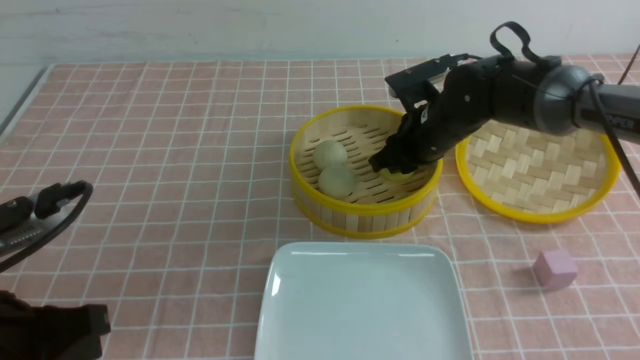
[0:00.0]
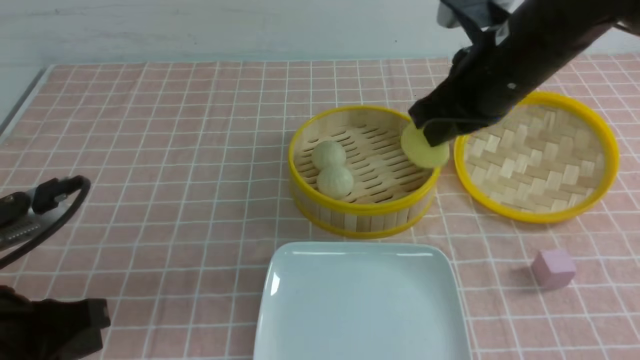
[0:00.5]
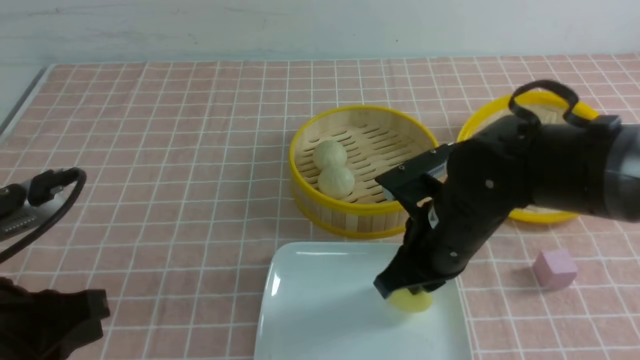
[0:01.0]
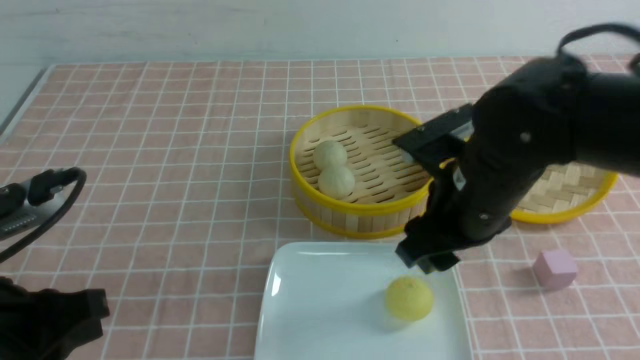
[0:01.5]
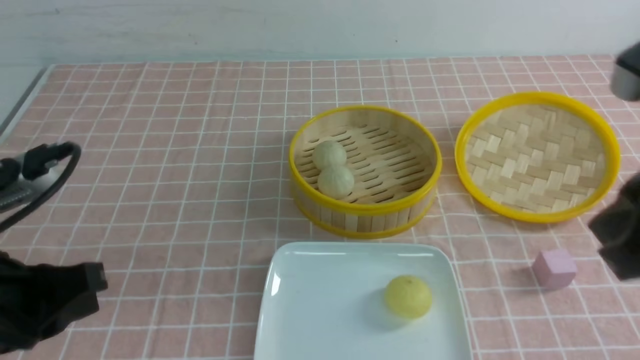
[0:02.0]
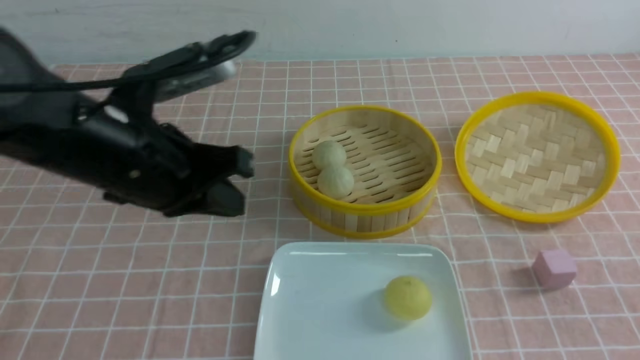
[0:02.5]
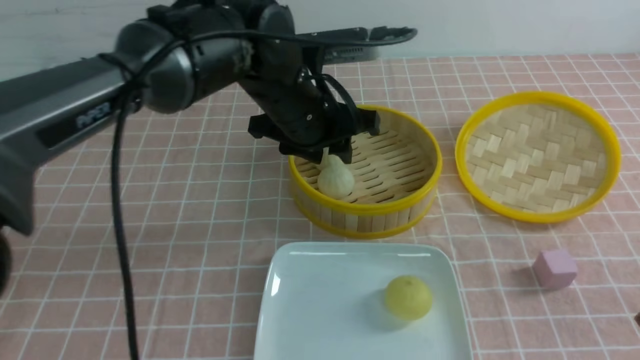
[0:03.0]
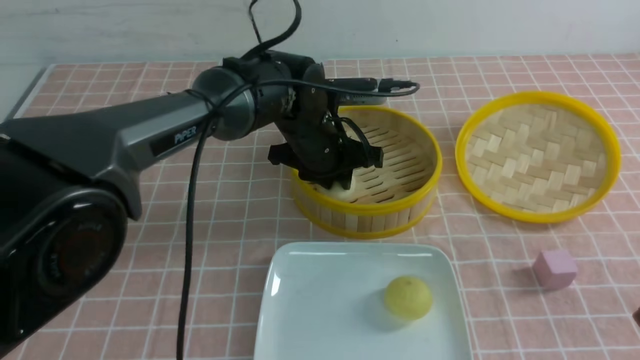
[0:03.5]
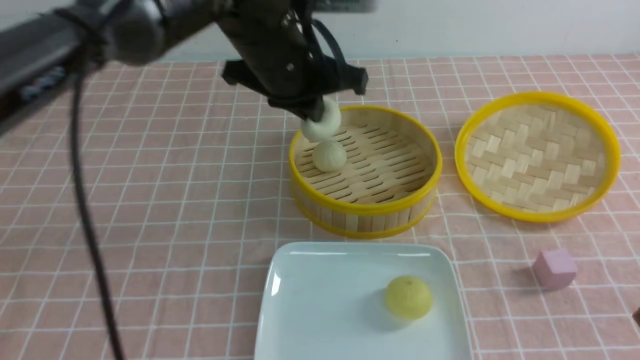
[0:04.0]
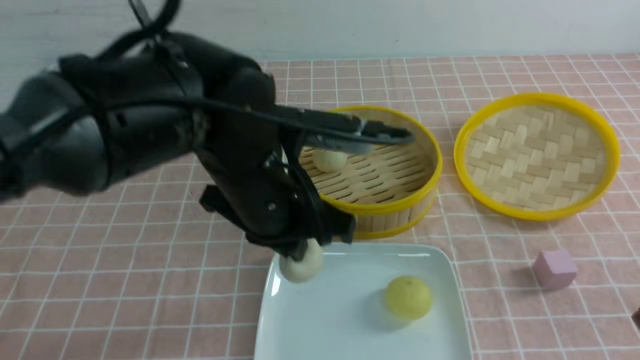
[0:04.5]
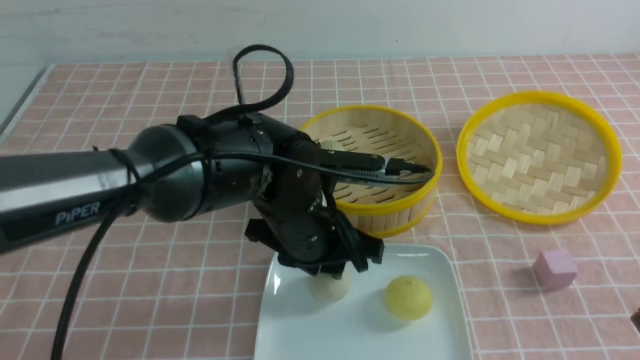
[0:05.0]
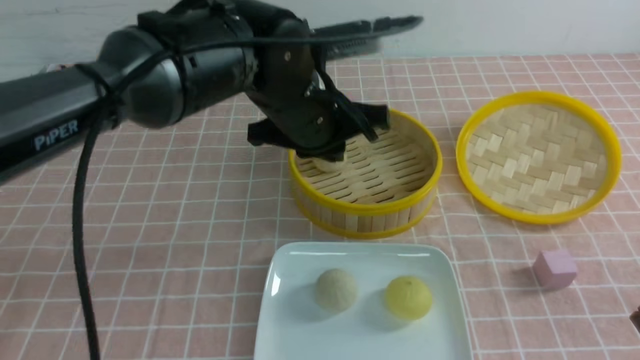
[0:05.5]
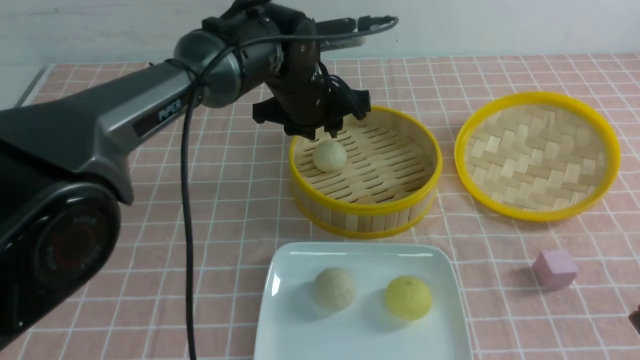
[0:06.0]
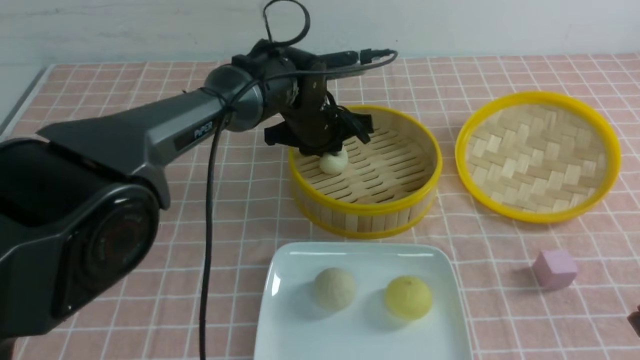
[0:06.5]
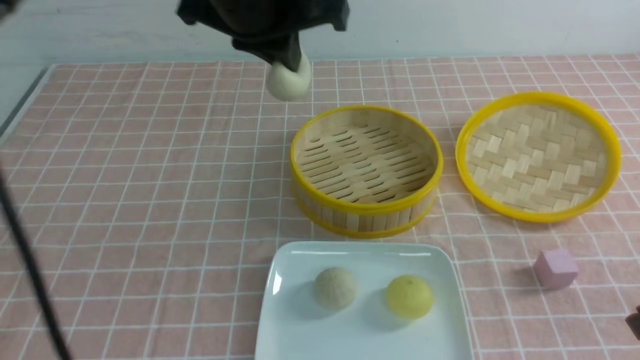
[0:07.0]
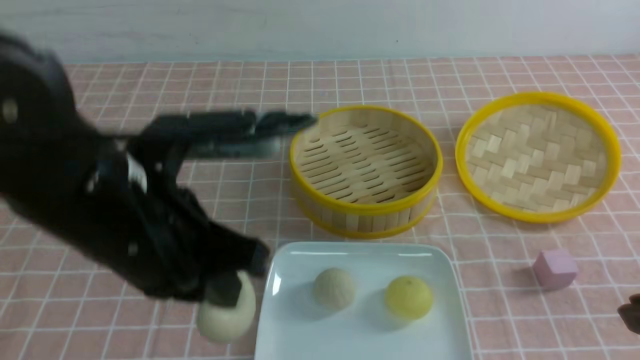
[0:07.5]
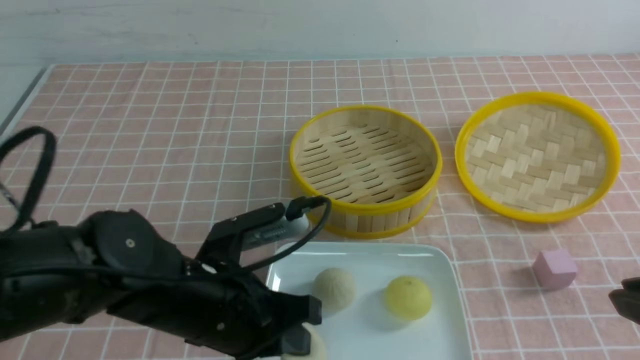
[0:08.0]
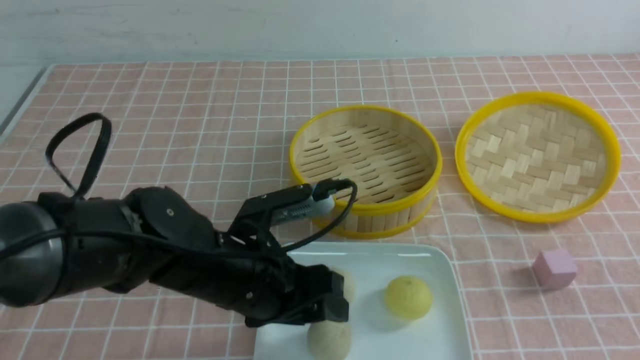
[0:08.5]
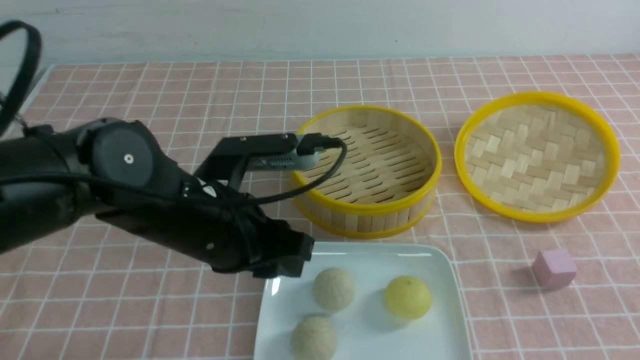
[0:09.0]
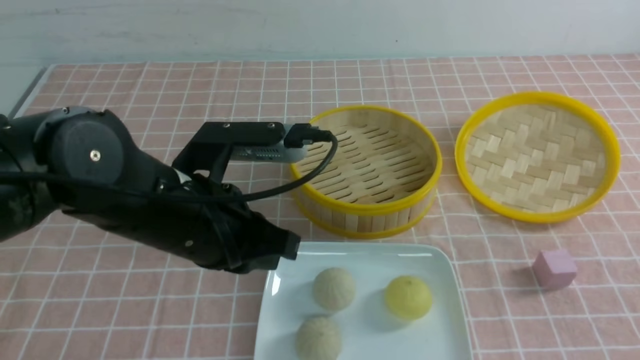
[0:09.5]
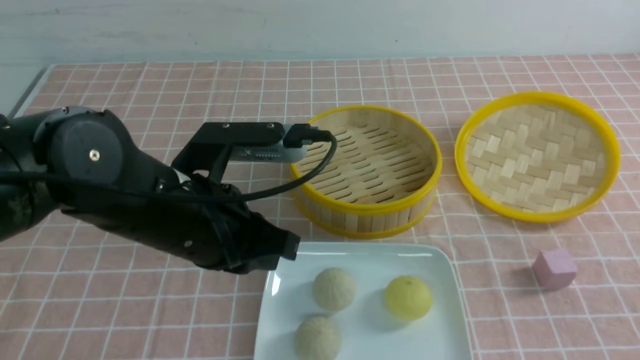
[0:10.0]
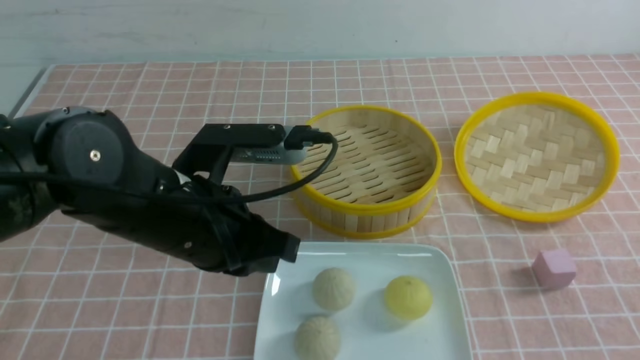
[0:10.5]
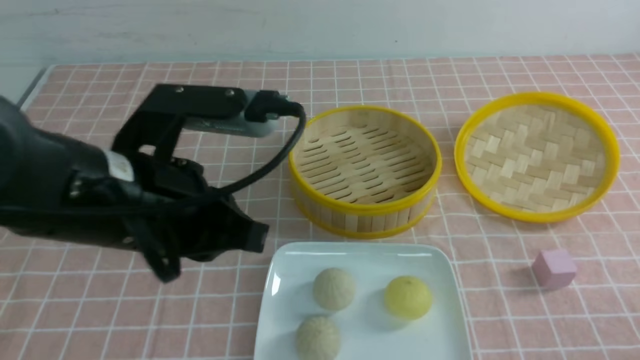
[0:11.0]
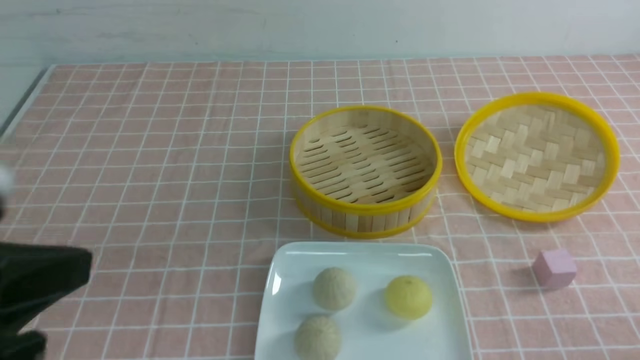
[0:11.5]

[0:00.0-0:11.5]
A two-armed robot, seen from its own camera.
Step, 0:00.5 to 0:01.0: use the right arm to put the steamed stuffed bun into the plate.
Step, 0:01.5 to 0:03.5: use the left arm to grab the steamed stuffed bun that is closest to it.
Step, 0:04.0 to 0:05.0: use the left arm to put the steamed stuffed bun into the plate.
Step, 0:05.5 to 0:06.5: use the left arm to grab the steamed stuffed bun that is closest to it.
Step, 0:07.0 to 0:08.0: use the left arm to put the steamed stuffed bun into the plate.
0:00.0 to 0:02.0: The right gripper heads backward and upward, covering roughly 30 cm, and closes its fingers.
0:02.0 to 0:04.0: The right gripper shifts approximately 10 cm downward and backward; the left gripper goes about 25 cm to the right and forward, and opens, then closes again.
0:04.0 to 0:06.0: The left gripper heads downward and forward, covering some 10 cm, and opens.
0:06.0 to 0:07.5: The left gripper shifts about 25 cm backward and to the left, and closes its fingers.
0:07.5 to 0:09.5: The left gripper reaches approximately 10 cm downward, then returns, and opens, then closes once more; the right gripper closes up.
0:09.5 to 0:11.5: The left gripper travels backward, to the left and upward by approximately 20 cm, while the right gripper shifts roughly 15 cm downward.

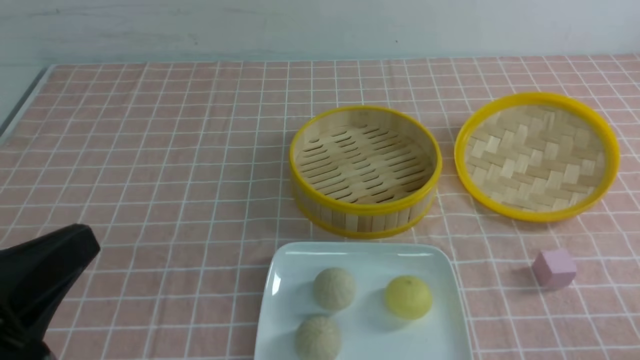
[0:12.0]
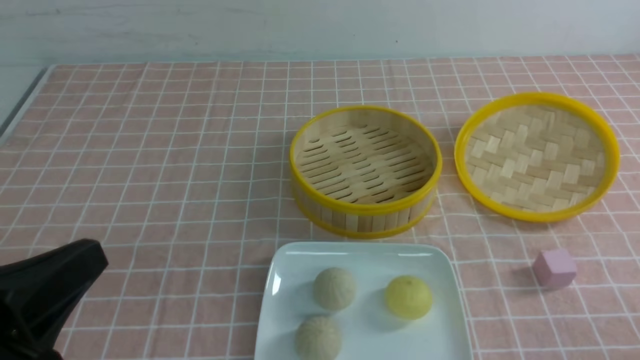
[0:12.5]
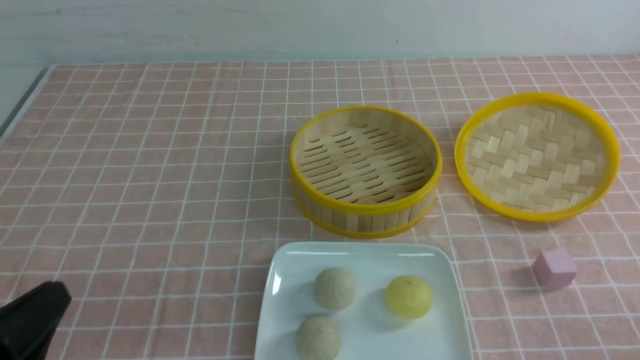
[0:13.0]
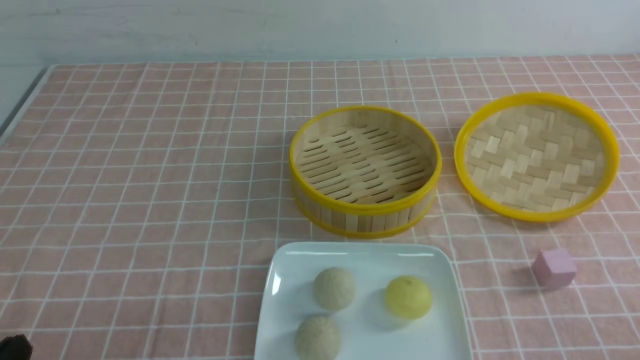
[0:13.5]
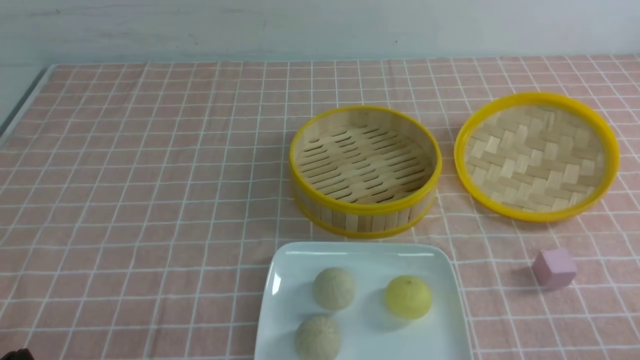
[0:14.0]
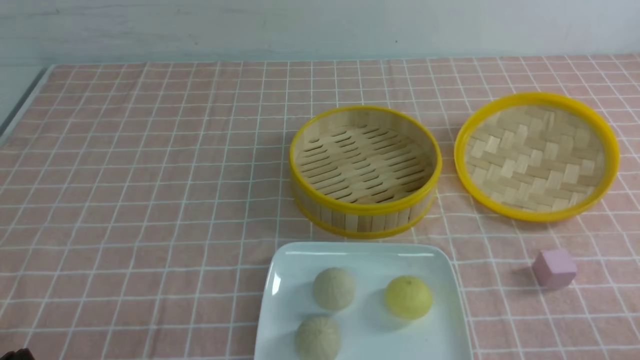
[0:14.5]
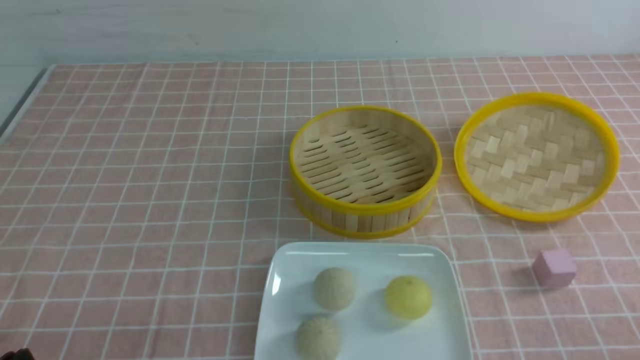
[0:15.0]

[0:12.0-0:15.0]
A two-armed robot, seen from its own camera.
0:12.0 to 0:13.5: The left gripper moves downward, approximately 15 cm.
0:13.5 to 0:15.0: Both grippers stay put.
